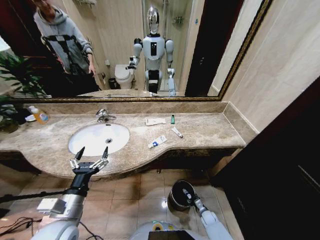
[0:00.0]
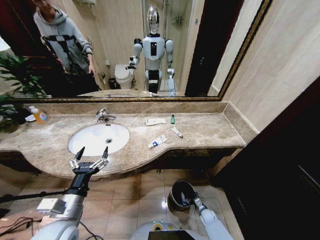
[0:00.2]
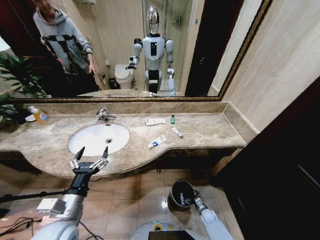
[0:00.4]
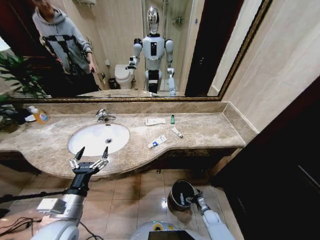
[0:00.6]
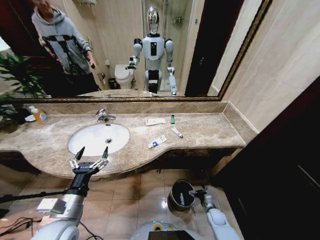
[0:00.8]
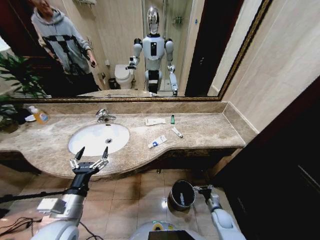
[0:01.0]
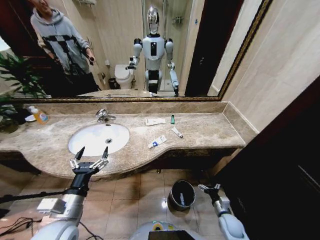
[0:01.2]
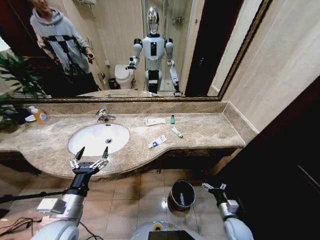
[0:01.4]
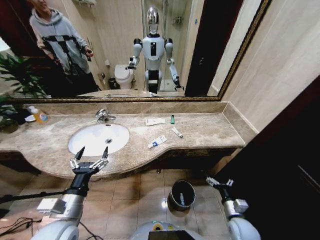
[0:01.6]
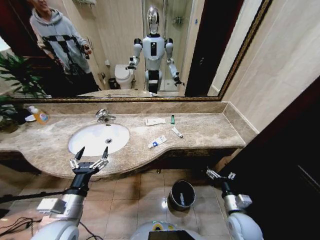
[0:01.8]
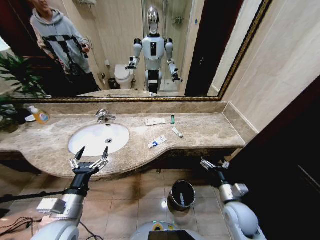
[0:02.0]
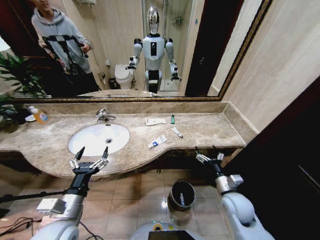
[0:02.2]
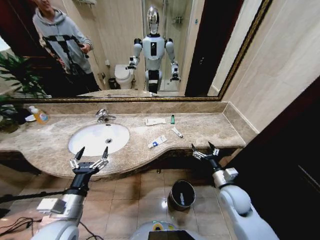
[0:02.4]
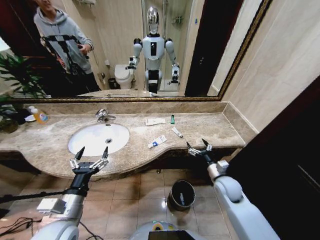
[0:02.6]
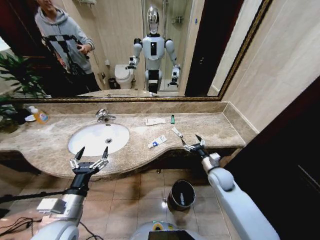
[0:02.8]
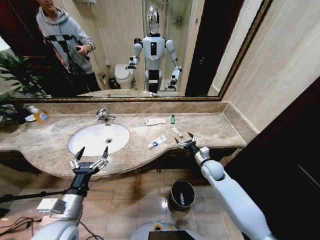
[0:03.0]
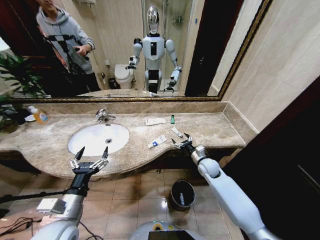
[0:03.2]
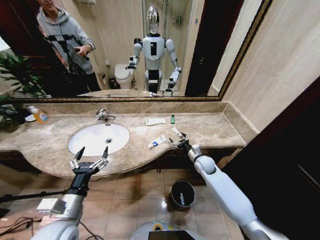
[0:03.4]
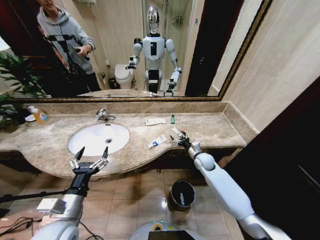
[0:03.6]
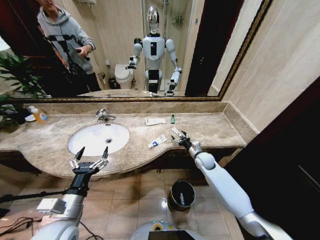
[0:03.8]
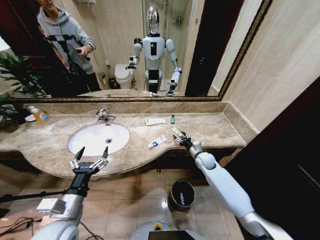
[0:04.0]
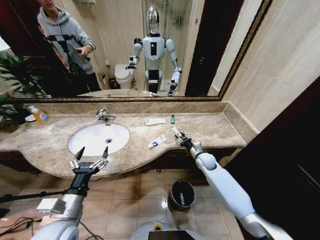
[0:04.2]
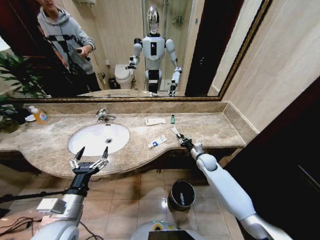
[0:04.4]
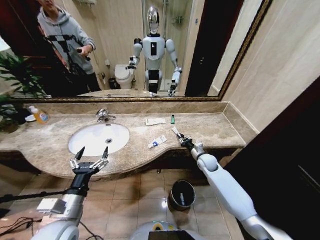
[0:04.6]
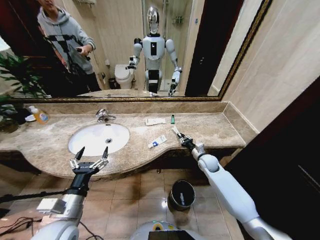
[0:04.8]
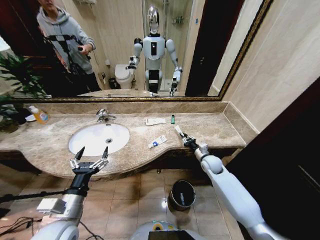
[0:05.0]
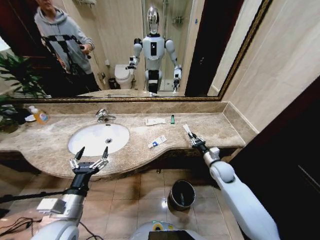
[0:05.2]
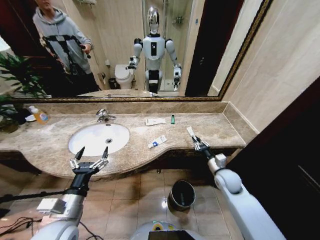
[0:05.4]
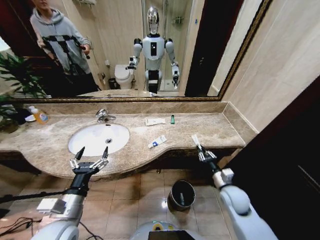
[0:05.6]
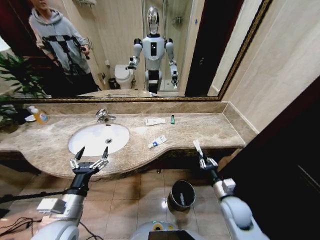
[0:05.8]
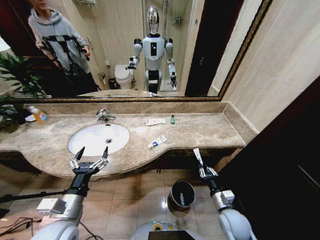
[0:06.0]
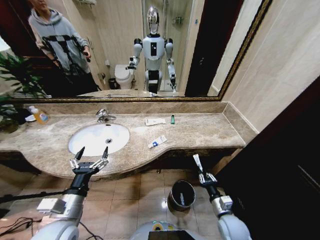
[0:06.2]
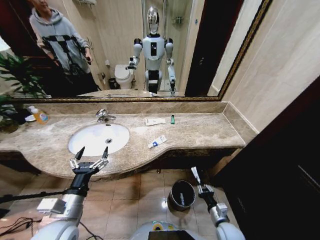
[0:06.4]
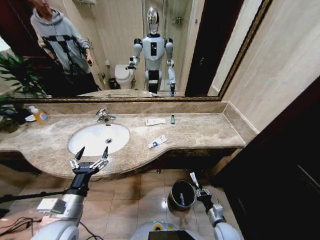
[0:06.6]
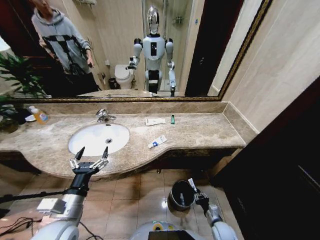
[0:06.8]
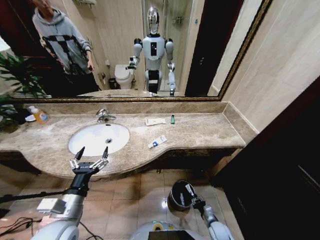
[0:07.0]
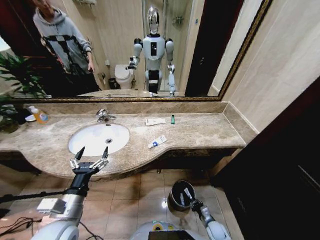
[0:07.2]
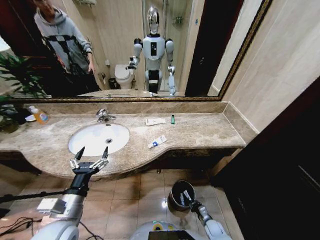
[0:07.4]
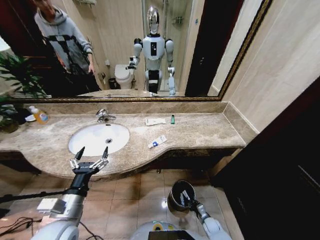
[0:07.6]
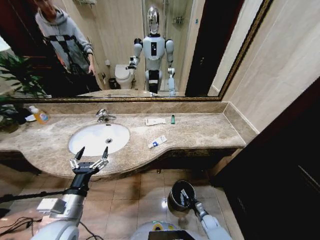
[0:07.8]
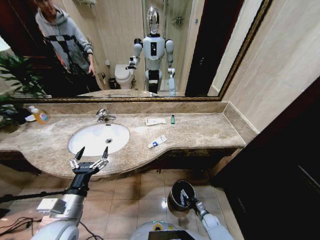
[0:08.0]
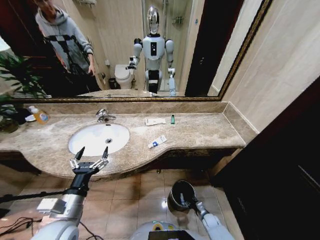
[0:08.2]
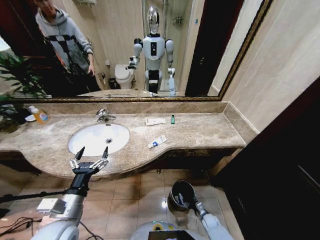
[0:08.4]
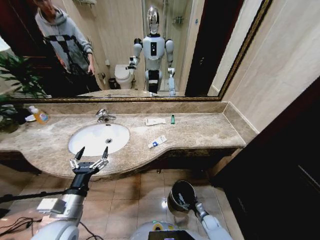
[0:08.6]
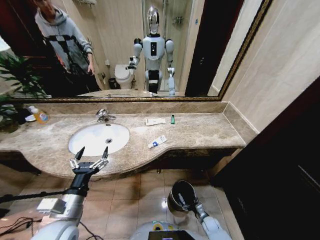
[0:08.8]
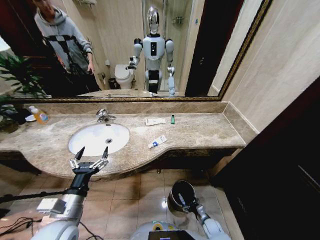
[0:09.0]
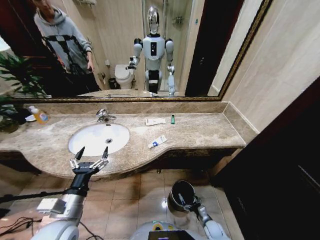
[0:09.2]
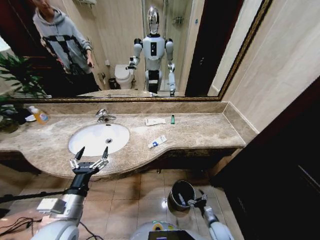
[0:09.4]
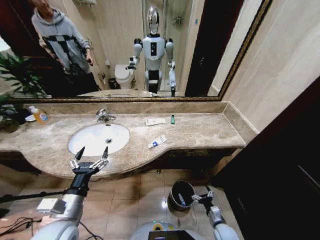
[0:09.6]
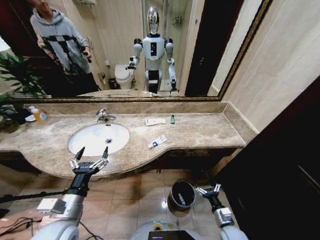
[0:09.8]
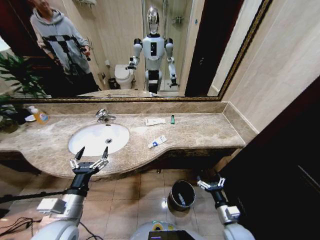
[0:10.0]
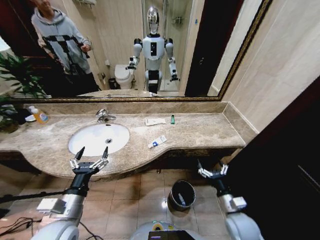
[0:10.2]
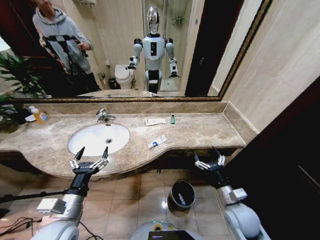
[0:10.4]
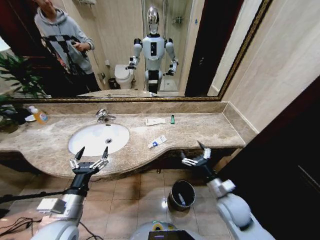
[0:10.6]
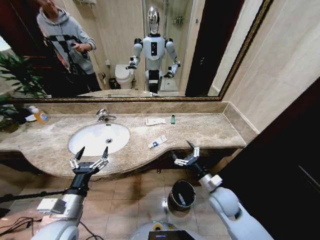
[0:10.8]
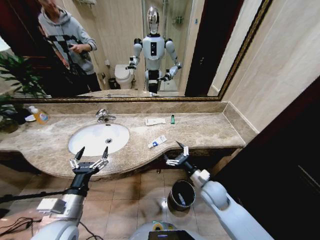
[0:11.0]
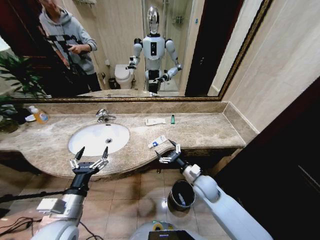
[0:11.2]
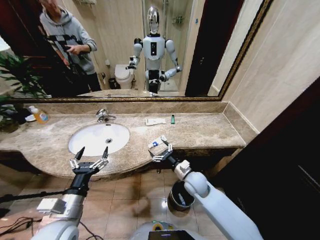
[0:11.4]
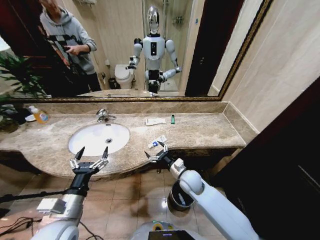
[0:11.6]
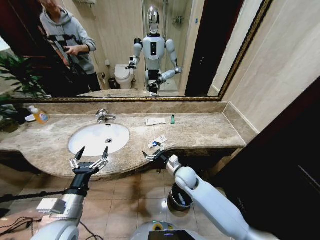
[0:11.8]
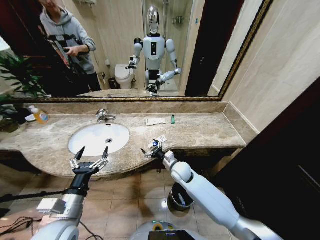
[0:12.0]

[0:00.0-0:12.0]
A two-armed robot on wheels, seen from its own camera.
Task of the whole recording: Pick up the trash from the sink and place it in the trash bin.
0:00.0 to 0:01.6: The right gripper goes approximately 25 cm upward, and opens up.
0:01.6 to 0:03.0: The right gripper is displaced forward by some 20 cm.
0:03.0 to 0:04.4: The right gripper heads forward, covering approximately 5 cm, and closes up.
0:04.4 to 0:06.0: The right gripper is displaced backward by some 25 cm.
0:06.0 to 0:07.6: The right gripper heads downward, covering some 30 cm.
0:09.0 to 0:10.4: The right gripper is displaced upward by approximately 35 cm.
0:10.4 to 0:12.0: The right gripper shifts approximately 25 cm forward and to the left.

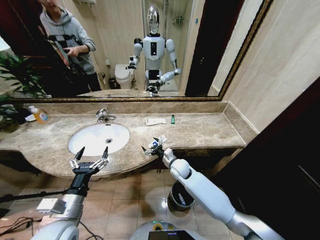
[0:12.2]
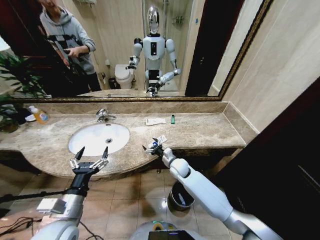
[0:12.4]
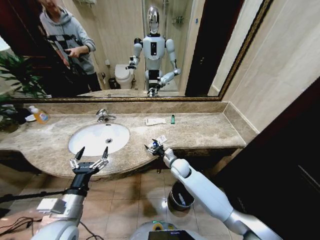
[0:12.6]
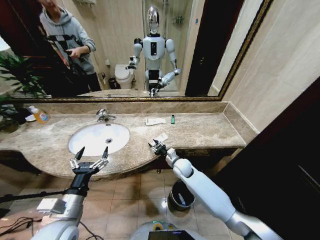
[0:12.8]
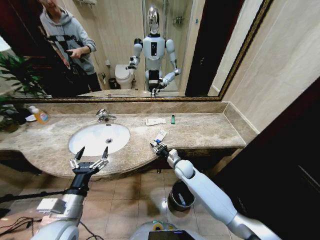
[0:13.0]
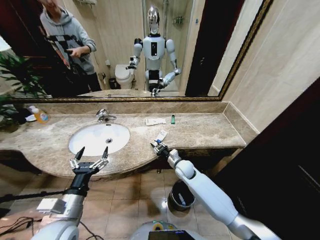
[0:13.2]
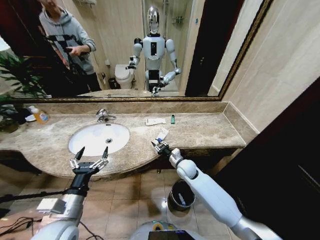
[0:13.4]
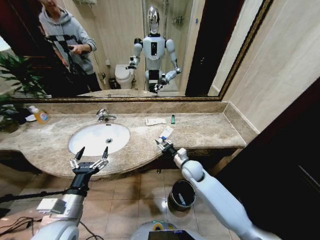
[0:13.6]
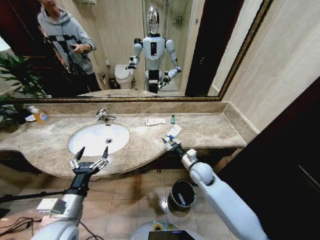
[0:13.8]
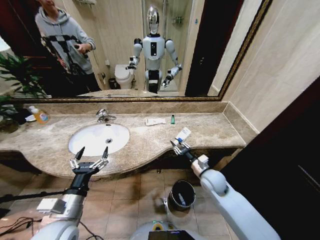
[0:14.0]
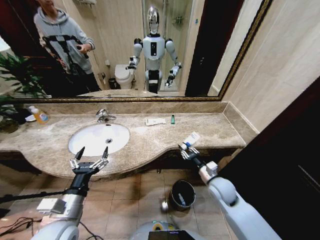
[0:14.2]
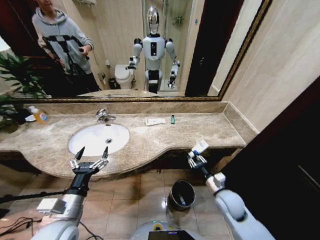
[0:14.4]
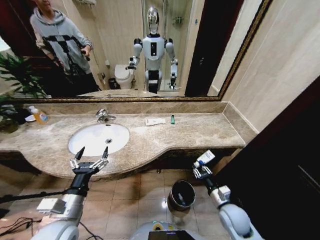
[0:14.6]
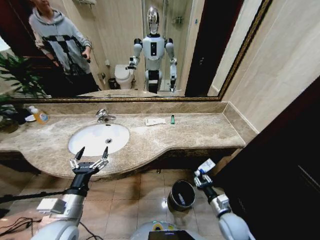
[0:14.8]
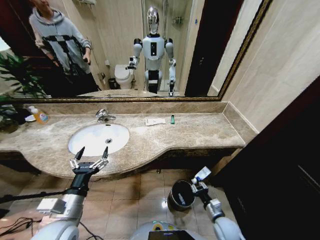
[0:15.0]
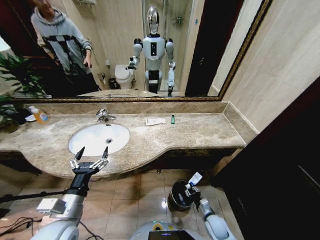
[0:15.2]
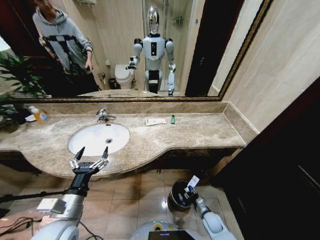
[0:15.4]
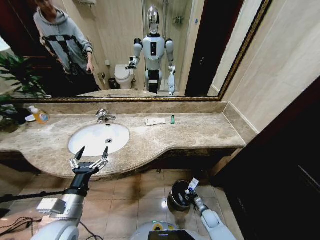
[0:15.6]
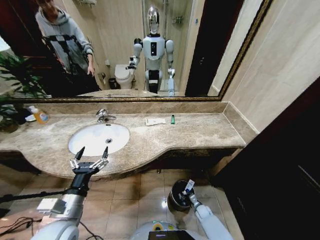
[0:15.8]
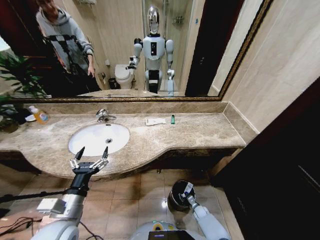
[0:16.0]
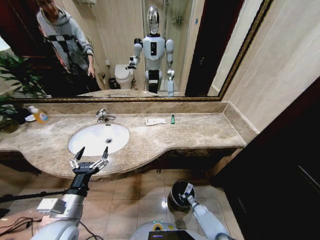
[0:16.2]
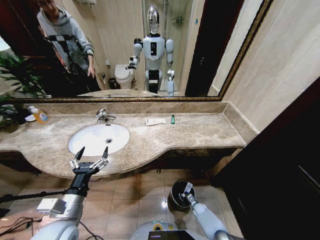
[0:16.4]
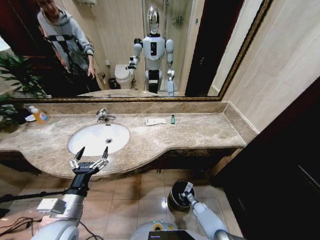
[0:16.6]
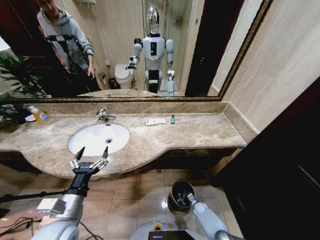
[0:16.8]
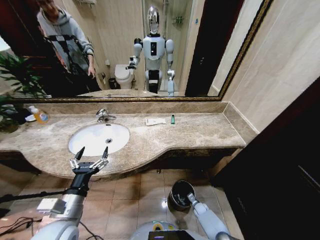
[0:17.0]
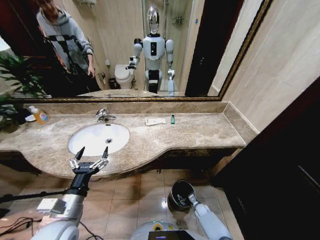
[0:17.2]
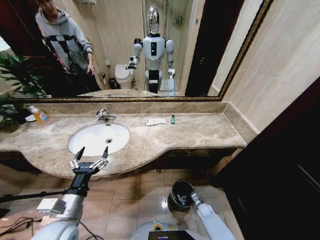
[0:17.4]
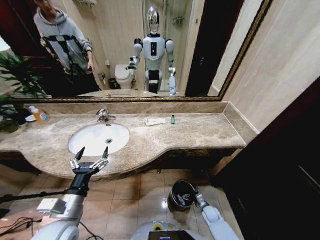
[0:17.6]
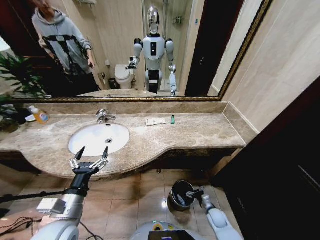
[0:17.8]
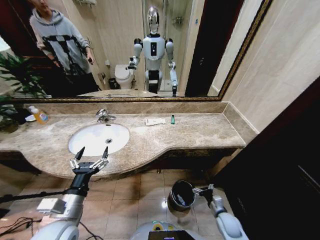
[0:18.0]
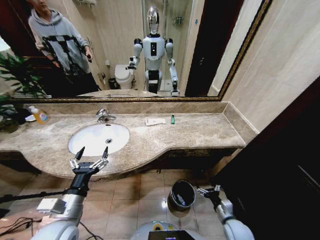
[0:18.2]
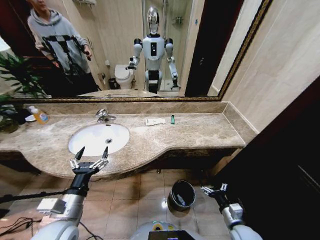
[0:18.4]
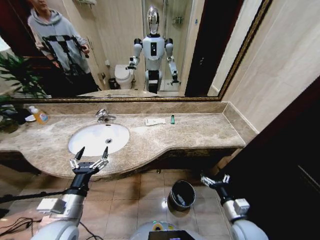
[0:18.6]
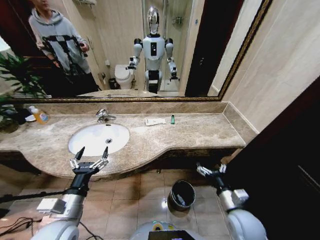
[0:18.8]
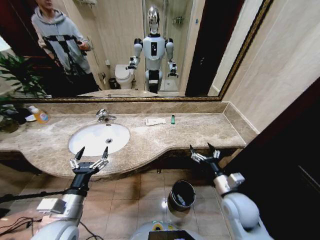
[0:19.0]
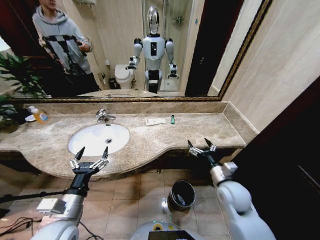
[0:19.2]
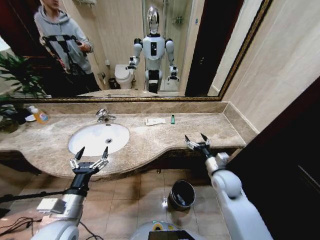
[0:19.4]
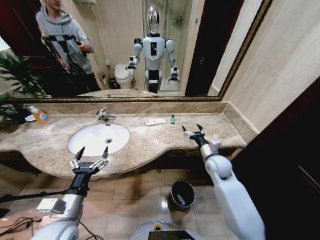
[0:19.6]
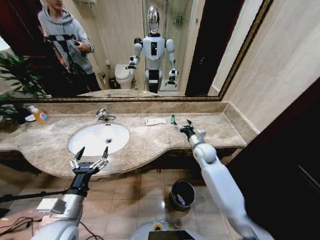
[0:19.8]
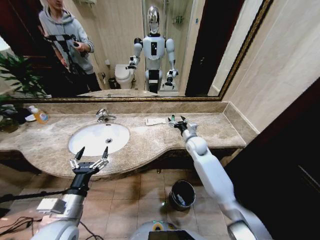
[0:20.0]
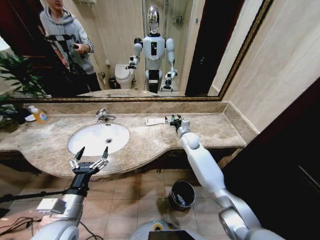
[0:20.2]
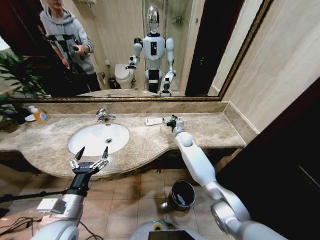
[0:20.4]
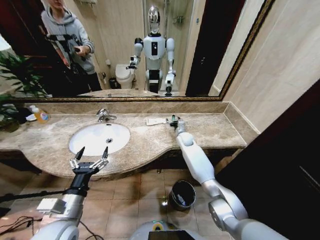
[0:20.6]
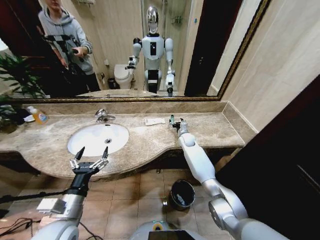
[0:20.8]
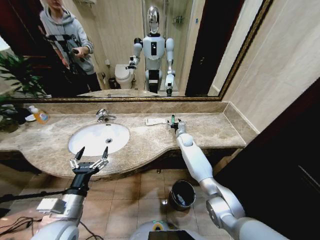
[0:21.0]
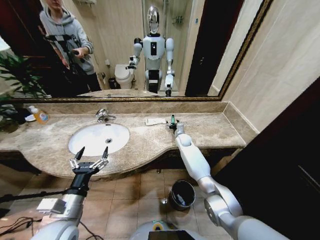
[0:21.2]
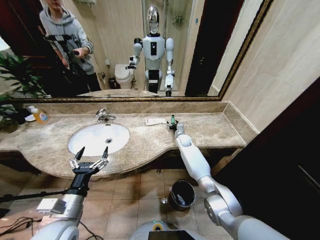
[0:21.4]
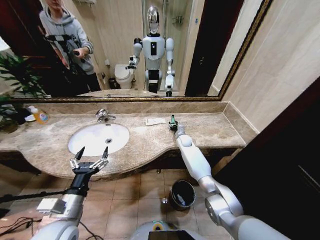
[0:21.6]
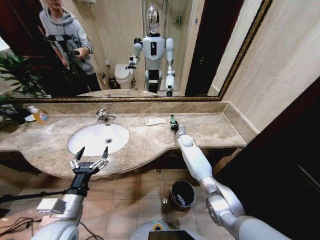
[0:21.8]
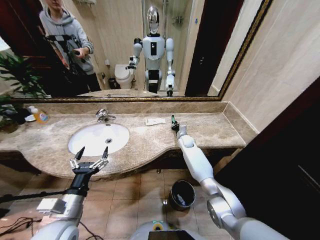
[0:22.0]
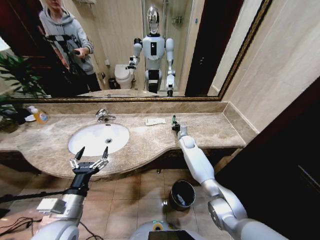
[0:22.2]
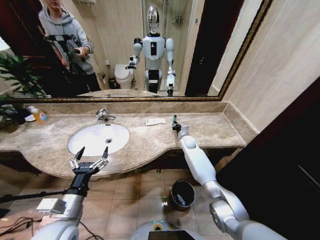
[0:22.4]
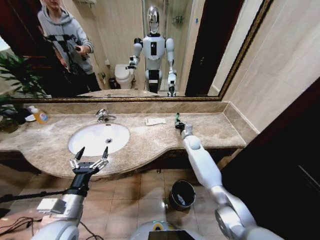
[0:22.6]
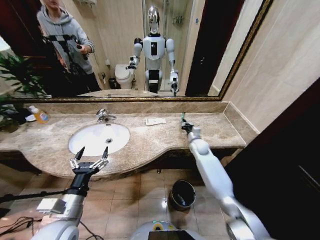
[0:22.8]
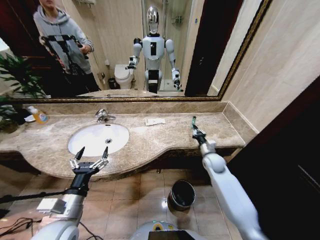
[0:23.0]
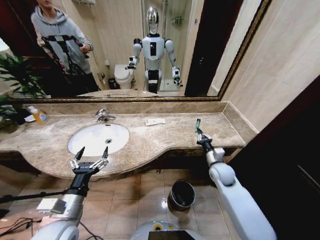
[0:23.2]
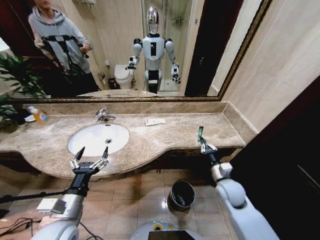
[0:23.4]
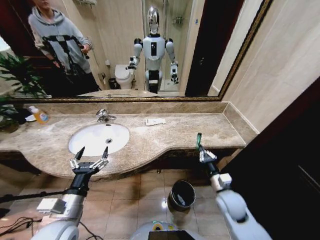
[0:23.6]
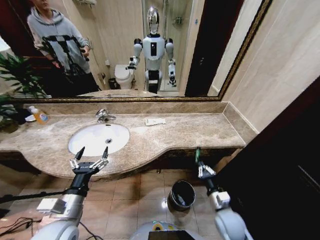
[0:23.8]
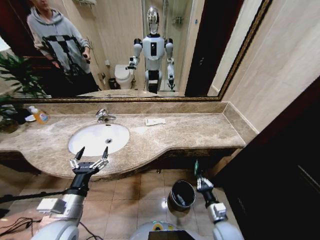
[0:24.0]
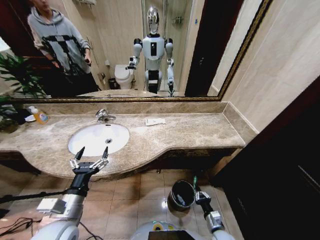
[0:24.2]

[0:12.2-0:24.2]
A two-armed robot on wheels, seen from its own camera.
Task of the whole recording: Pick up the trash from the sink and place it in the trash bin.
0:12.2 to 0:13.8: The right gripper heads to the right, covering roughly 10 cm, and closes.
0:13.8 to 0:15.2: The right gripper travels downward and backward by approximately 25 cm.
0:15.2 to 0:16.6: The right gripper shifts some 20 cm downward and forward.
0:16.6 to 0:18.2: The right gripper goes roughly 25 cm upward and backward, and opens its fingers.
0:18.2 to 0:19.8: The right gripper goes approximately 35 cm forward and upward.
0:19.8 to 0:21.2: The right gripper shifts approximately 15 cm forward and downward.
0:21.2 to 0:22.6: The right gripper changes place by about 5 cm, and closes its fingers.
0:22.6 to 0:24.2: The right gripper heads backward and downward, covering about 50 cm.
